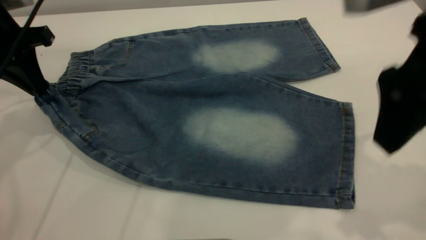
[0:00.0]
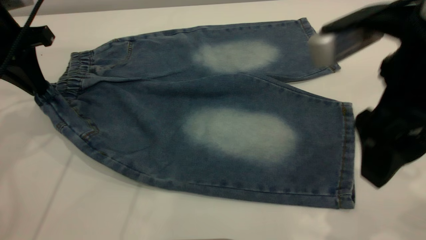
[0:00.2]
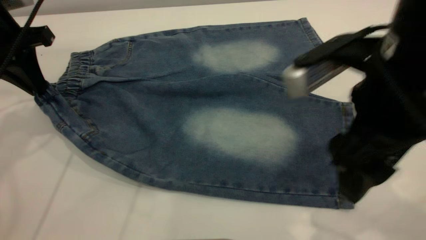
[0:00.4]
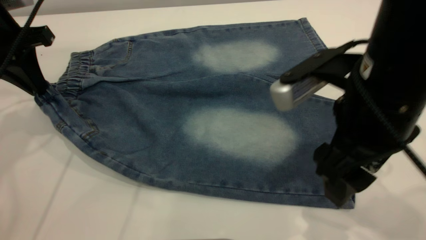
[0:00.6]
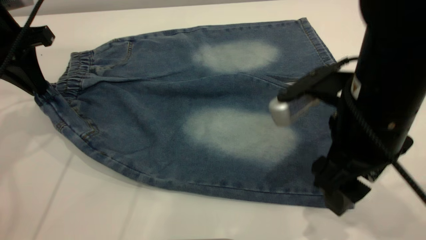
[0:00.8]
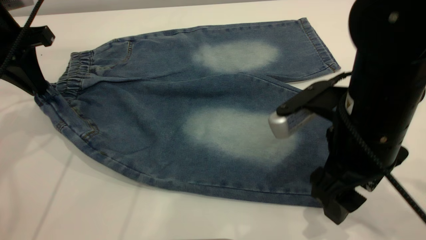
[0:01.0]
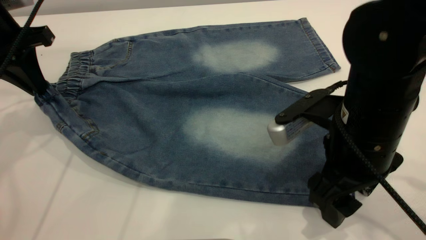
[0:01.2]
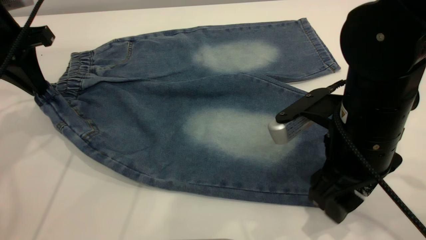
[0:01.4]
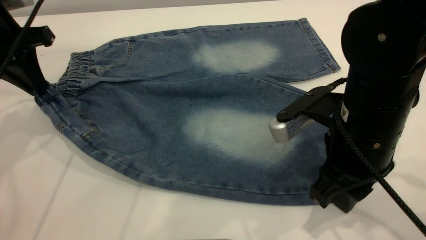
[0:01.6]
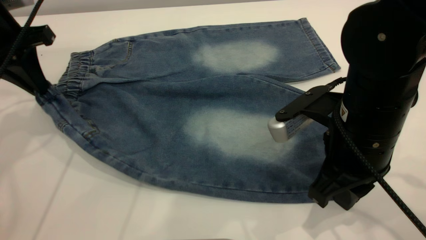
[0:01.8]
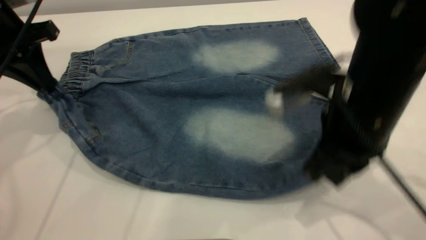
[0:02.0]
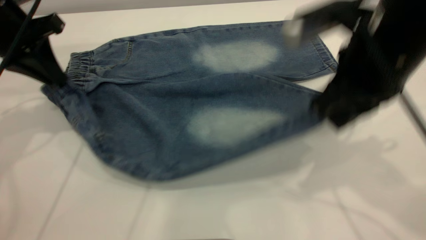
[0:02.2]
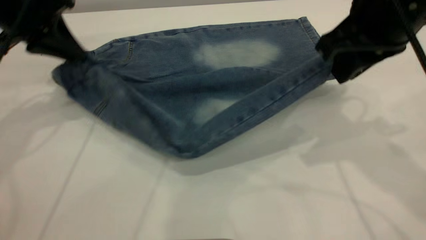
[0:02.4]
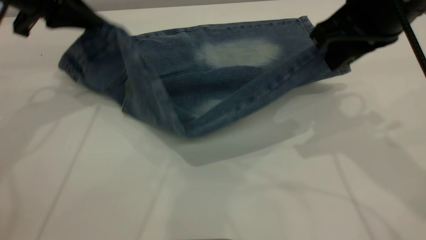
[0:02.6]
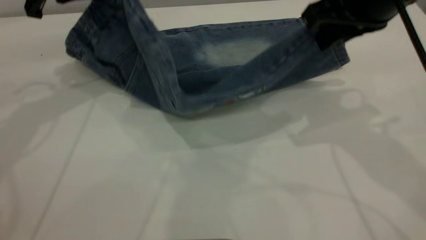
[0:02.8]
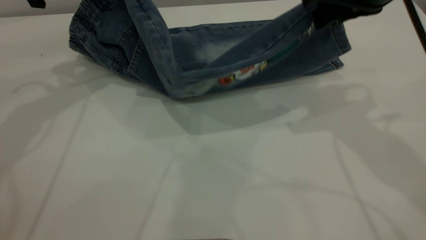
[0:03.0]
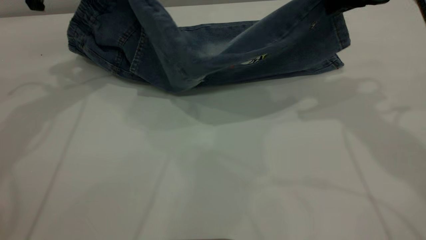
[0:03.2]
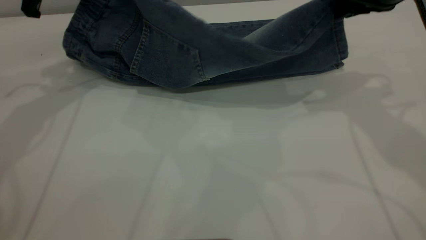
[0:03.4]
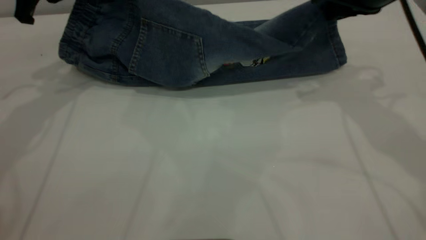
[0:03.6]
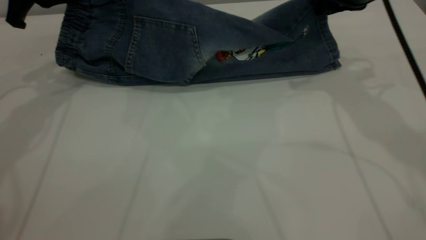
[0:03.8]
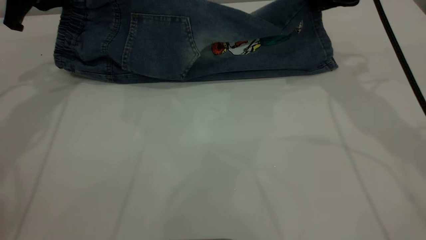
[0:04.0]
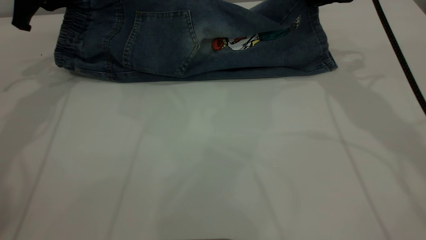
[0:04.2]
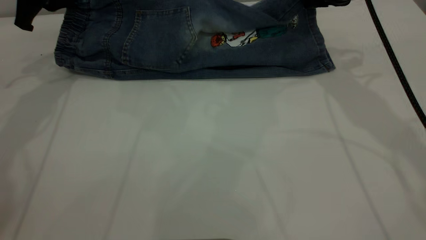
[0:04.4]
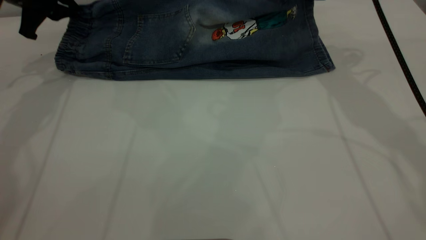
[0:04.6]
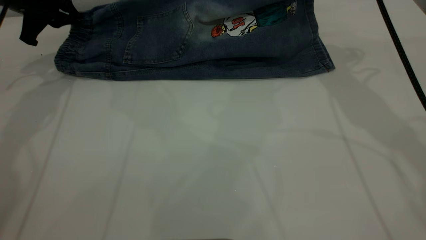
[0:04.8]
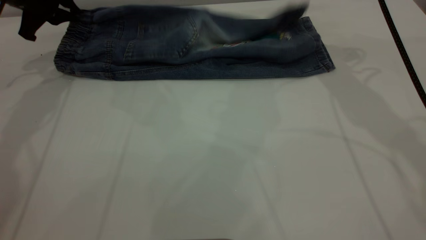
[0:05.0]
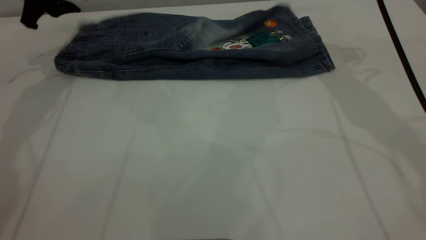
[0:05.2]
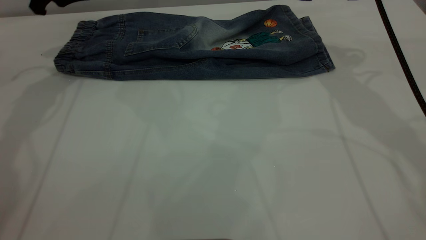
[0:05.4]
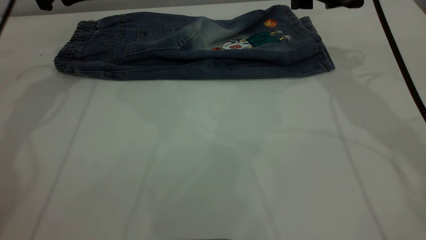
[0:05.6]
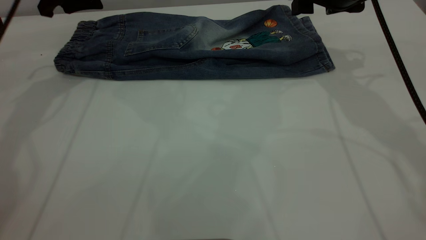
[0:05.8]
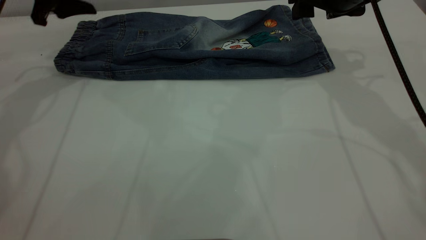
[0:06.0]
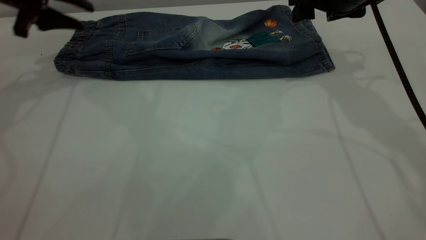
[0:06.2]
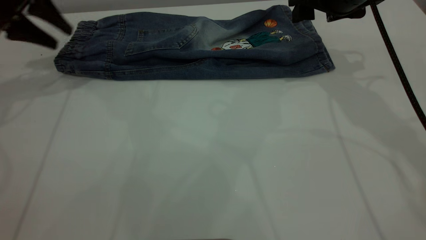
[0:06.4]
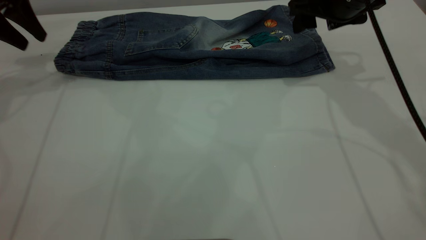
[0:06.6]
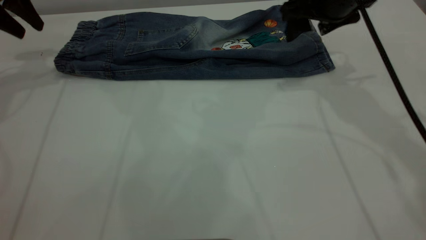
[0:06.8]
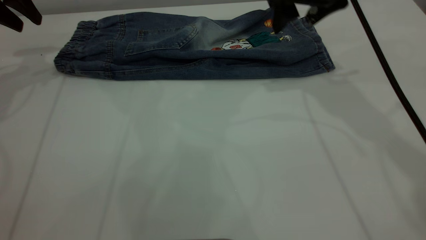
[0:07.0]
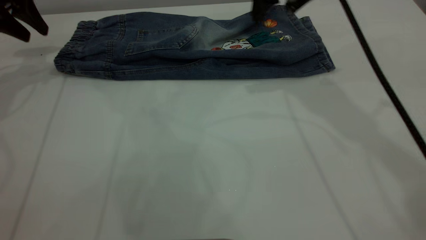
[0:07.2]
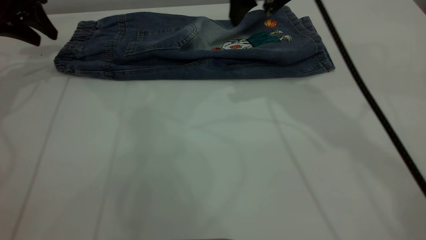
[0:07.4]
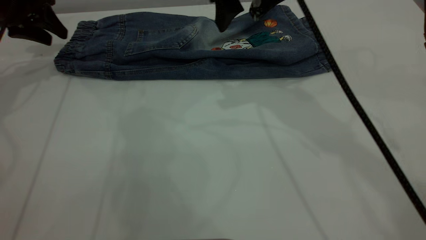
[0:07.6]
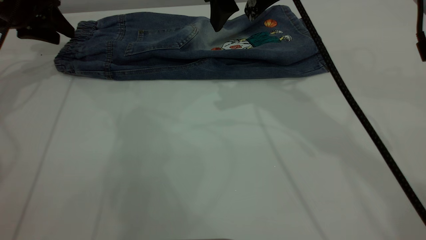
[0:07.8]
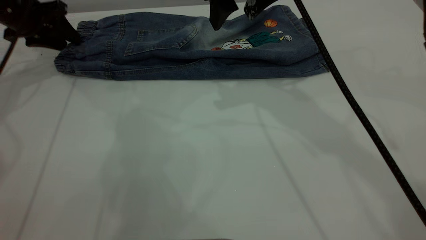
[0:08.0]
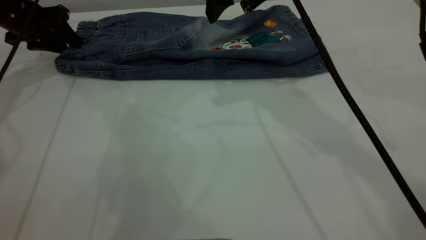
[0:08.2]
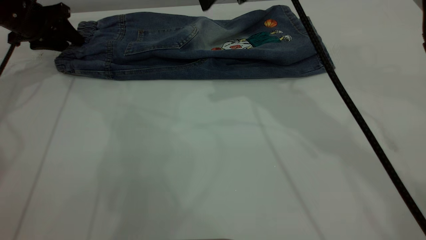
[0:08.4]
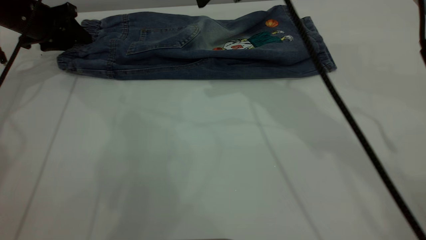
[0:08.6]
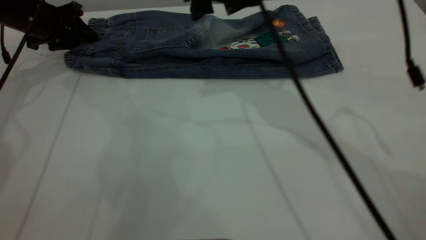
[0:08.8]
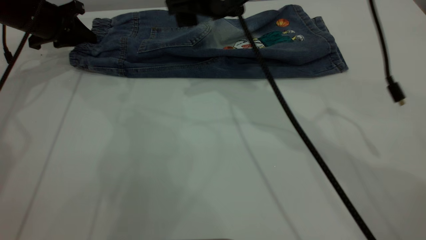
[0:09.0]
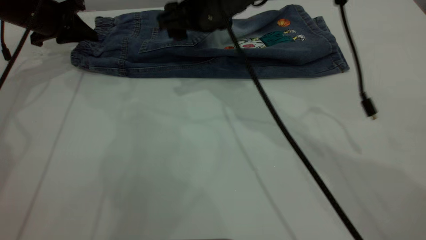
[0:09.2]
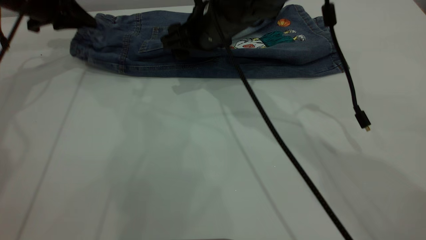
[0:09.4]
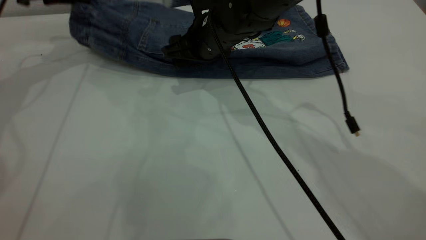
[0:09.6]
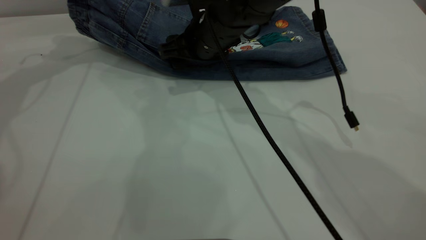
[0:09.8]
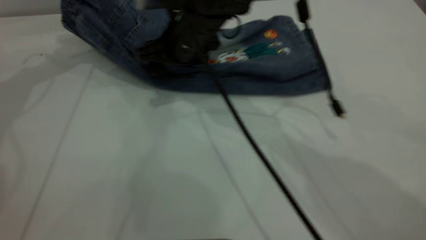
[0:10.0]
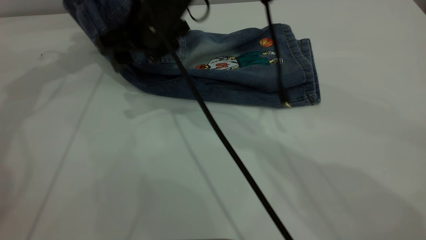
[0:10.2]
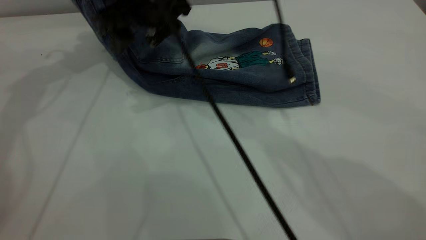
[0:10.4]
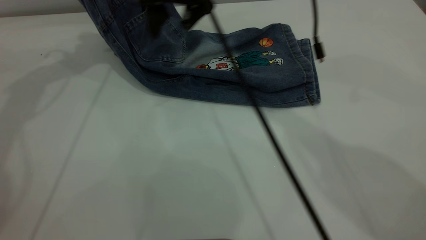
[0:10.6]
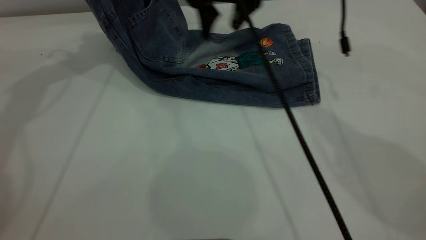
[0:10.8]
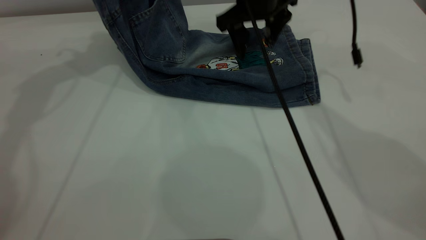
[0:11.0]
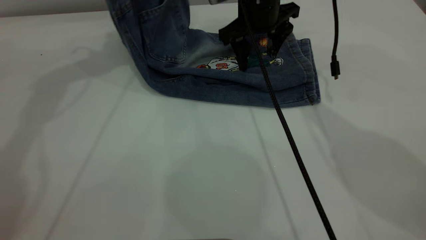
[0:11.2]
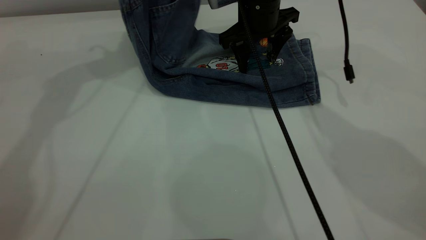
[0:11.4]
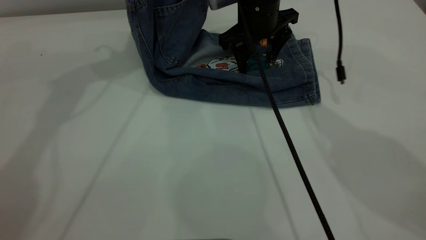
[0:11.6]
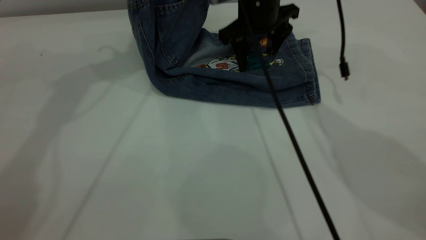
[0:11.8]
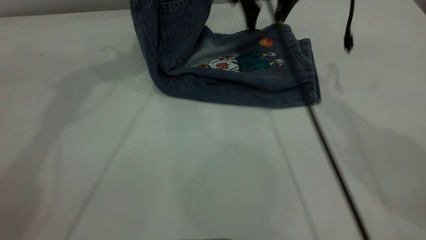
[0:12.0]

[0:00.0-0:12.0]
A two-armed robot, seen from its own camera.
Step, 0:00.0 to 0:05.2: Fold the bottom of the pants upward.
0:00.0 to 0:01.6: The right gripper is displaced downward by approximately 15 cm, and closes up.
0:01.6 to 0:03.0: The left gripper shifts by some 5 cm. Meanwhile the right gripper heads upward and forward, covering approximately 15 cm.
0:03.0 to 0:04.4: The right gripper is displaced forward and downward by about 10 cm. The left gripper ends up approximately 5 cm from where it was.
0:04.4 to 0:06.0: The right gripper opens. The left gripper opens up.
0:06.0 to 0:07.6: The right gripper moves to the left and upward, some 15 cm; the left gripper is displaced to the left by about 5 cm.
0:07.6 to 0:09.0: The two grippers go about 5 cm downward. The left gripper closes its fingers.
0:09.0 to 0:10.4: The left gripper is displaced upward by roughly 15 cm; the right gripper moves to the left, some 10 cm.
0:10.4 to 0:12.0: The right gripper is displaced to the right and forward by some 20 cm; the left gripper moves to the right and upward, about 10 cm.

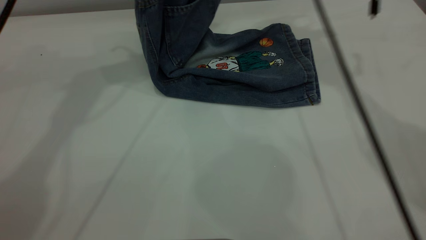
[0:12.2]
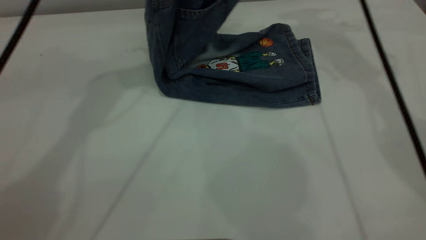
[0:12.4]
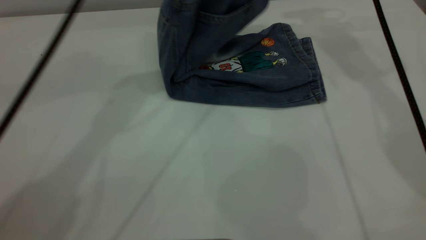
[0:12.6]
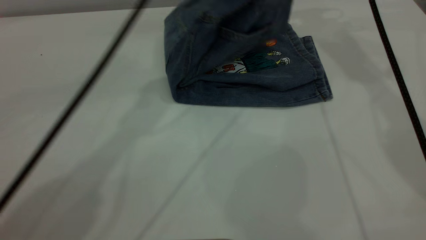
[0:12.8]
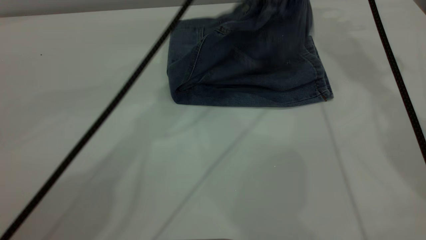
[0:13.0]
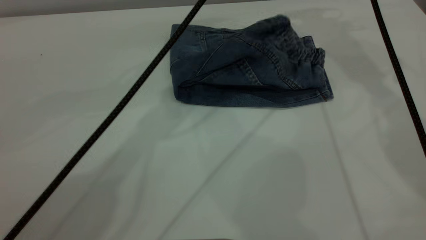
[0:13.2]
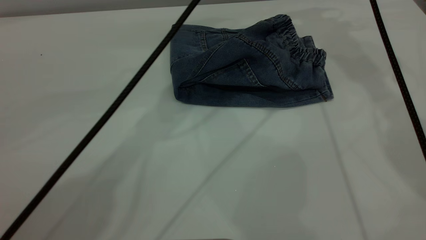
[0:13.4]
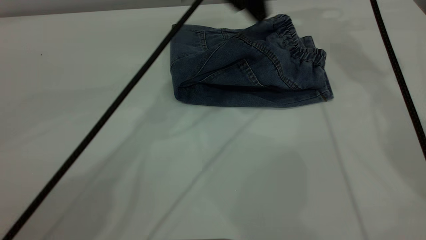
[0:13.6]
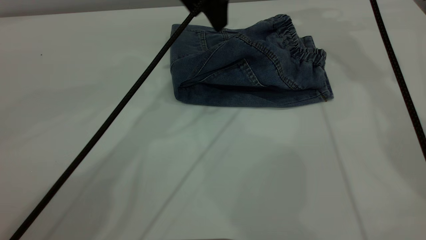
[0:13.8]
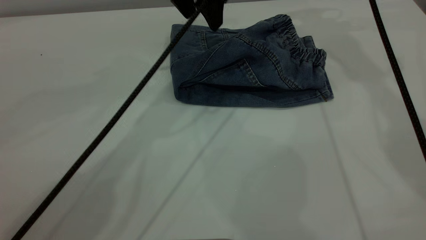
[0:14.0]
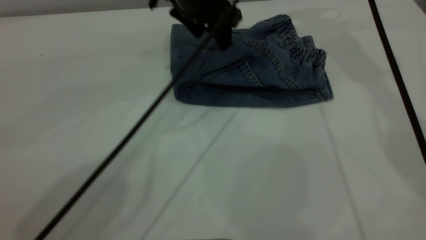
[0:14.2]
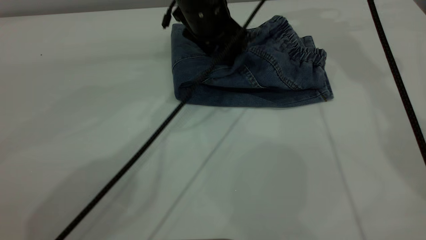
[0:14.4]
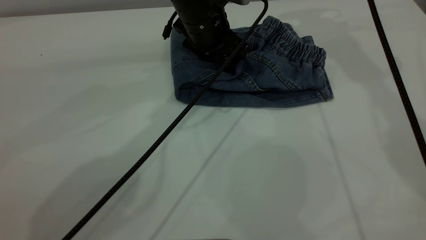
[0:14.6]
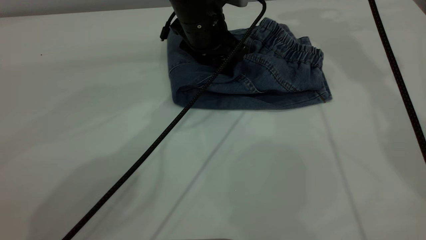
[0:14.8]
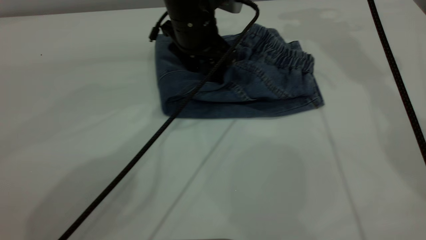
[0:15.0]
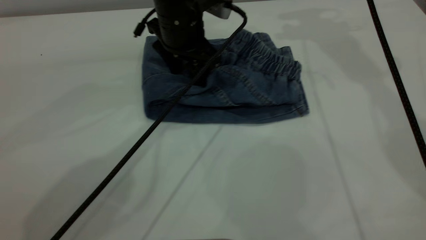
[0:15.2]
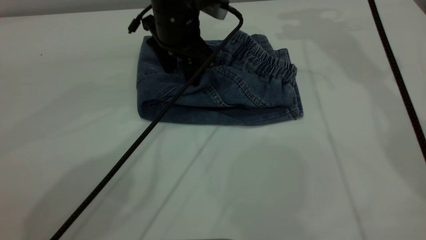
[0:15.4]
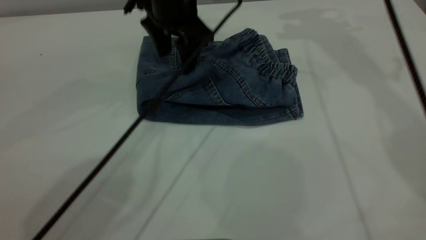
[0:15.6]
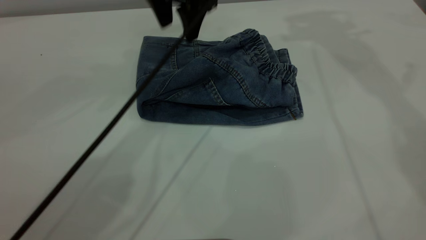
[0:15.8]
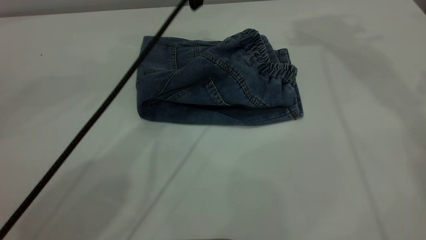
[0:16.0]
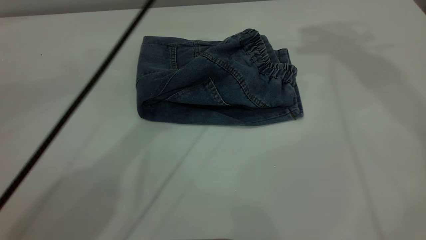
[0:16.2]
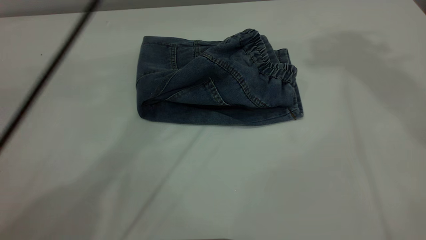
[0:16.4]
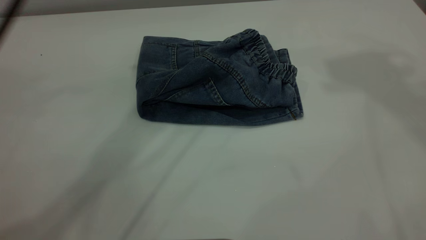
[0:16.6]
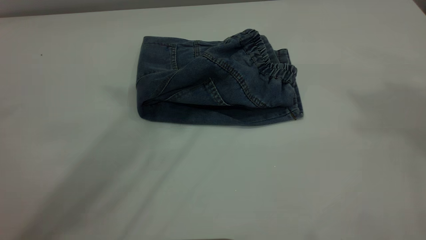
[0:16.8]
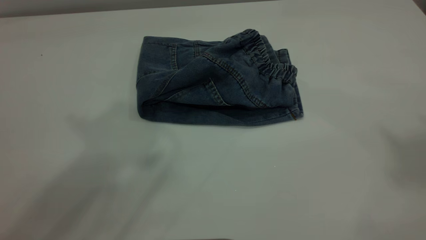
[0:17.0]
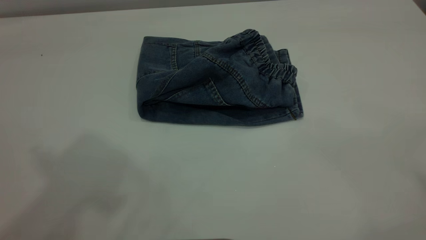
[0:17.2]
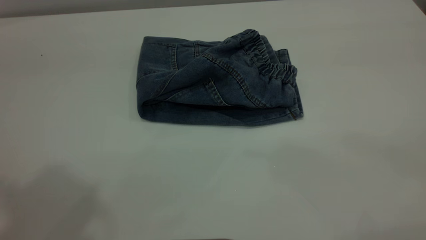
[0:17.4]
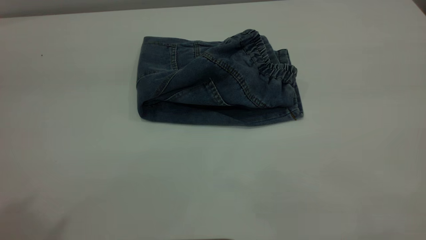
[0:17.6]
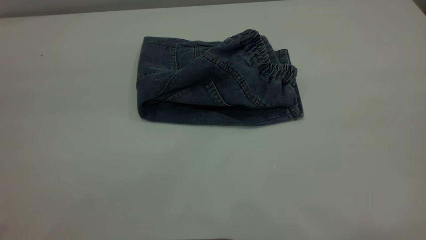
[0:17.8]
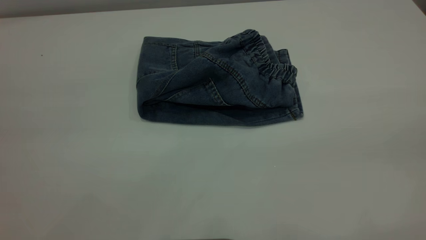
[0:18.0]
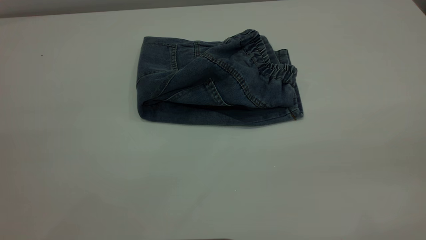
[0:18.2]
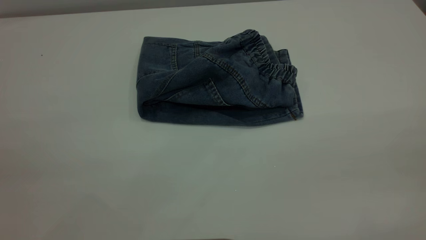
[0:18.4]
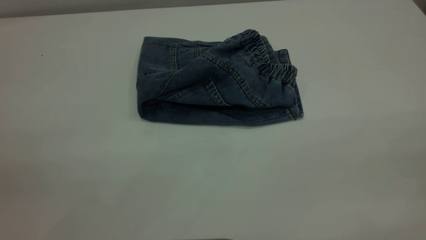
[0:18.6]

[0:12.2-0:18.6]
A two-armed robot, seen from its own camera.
0:12.2 to 0:13.8: The left gripper shifts approximately 15 cm to the right and downward, and opens its fingers. The right gripper ends up roughly 5 cm from where it was.
0:13.8 to 0:15.4: The left gripper is displaced downward by roughly 10 cm.
0:15.4 to 0:17.0: The left gripper travels upward and backward by approximately 40 cm, while the right gripper moves backward and upward, about 40 cm.
